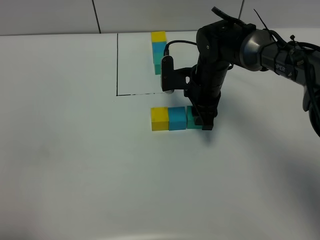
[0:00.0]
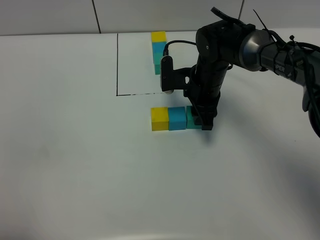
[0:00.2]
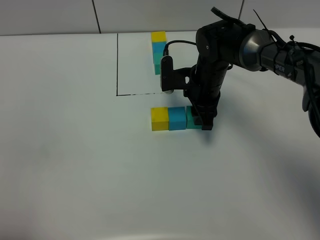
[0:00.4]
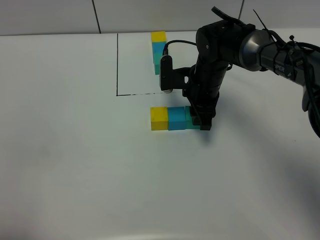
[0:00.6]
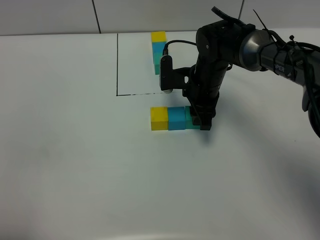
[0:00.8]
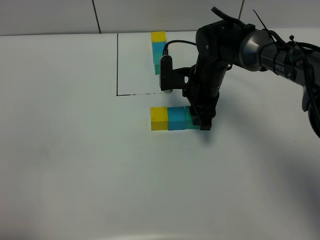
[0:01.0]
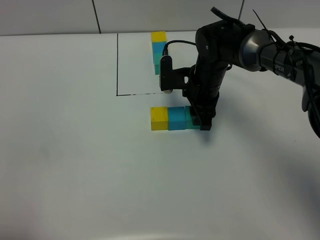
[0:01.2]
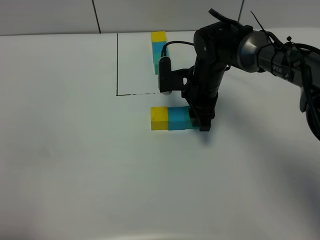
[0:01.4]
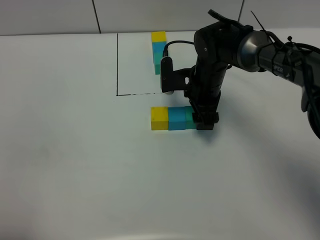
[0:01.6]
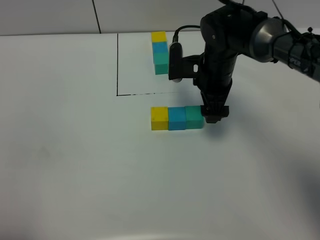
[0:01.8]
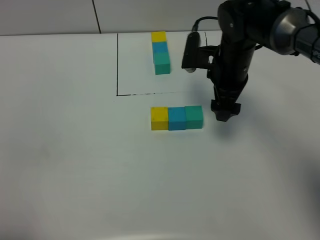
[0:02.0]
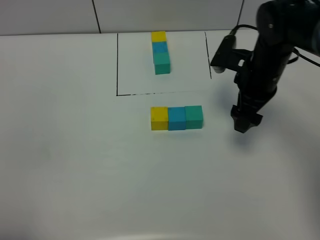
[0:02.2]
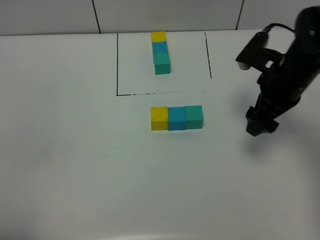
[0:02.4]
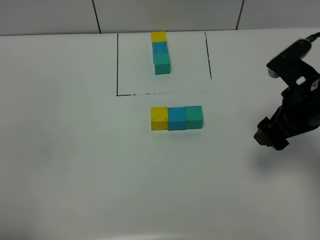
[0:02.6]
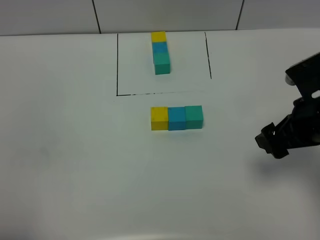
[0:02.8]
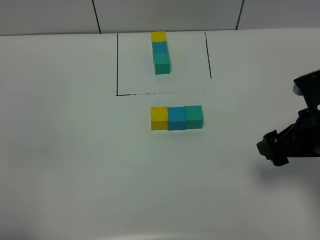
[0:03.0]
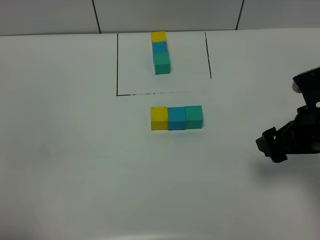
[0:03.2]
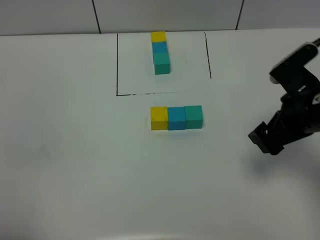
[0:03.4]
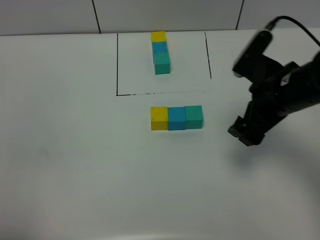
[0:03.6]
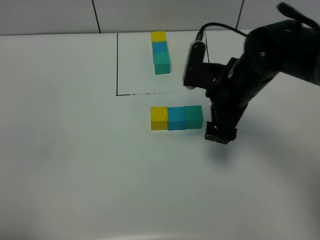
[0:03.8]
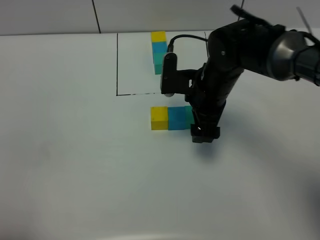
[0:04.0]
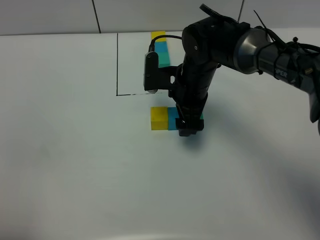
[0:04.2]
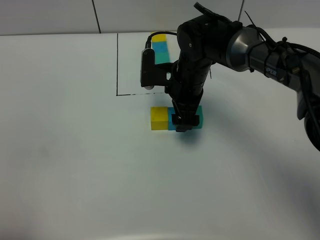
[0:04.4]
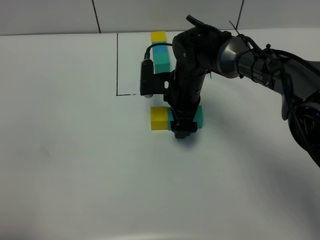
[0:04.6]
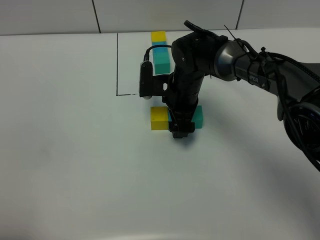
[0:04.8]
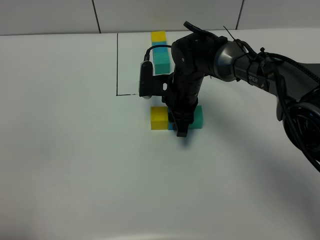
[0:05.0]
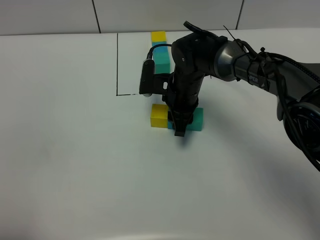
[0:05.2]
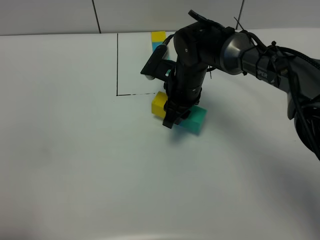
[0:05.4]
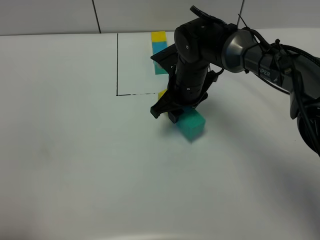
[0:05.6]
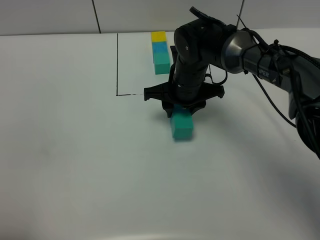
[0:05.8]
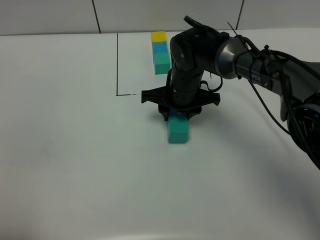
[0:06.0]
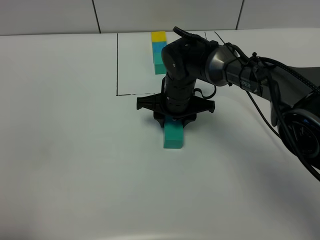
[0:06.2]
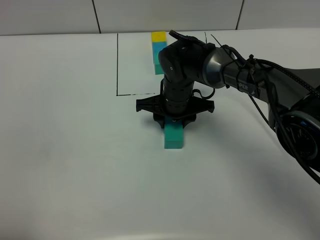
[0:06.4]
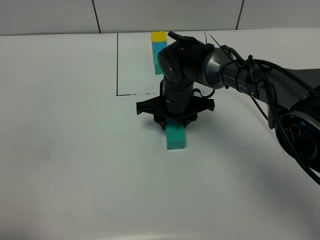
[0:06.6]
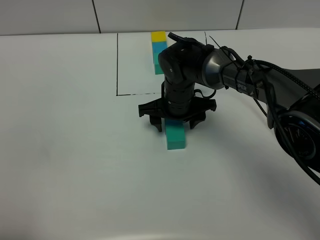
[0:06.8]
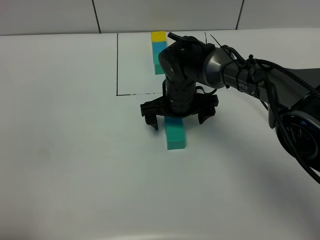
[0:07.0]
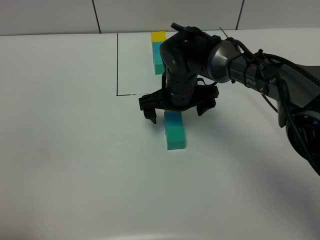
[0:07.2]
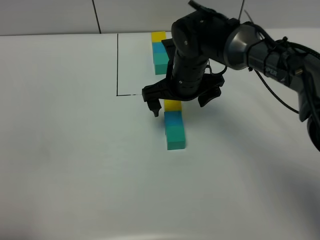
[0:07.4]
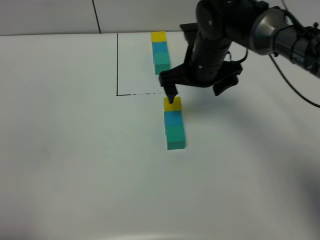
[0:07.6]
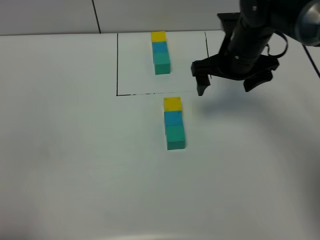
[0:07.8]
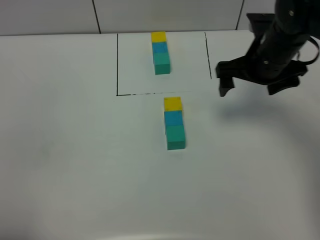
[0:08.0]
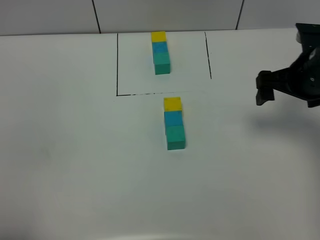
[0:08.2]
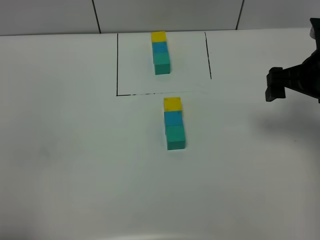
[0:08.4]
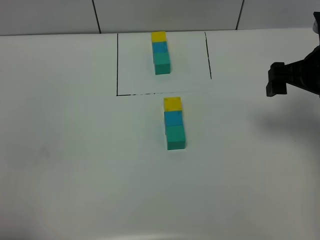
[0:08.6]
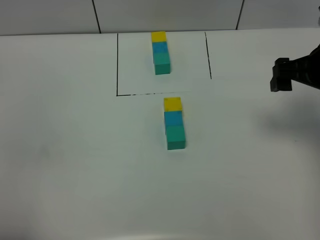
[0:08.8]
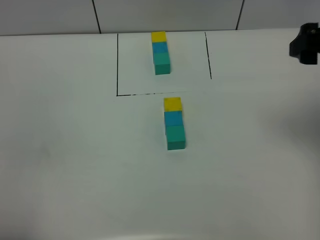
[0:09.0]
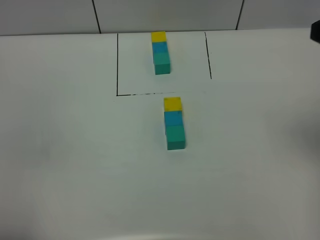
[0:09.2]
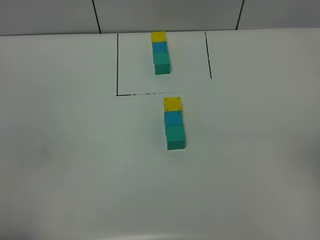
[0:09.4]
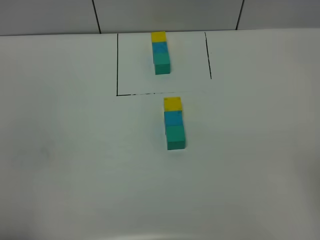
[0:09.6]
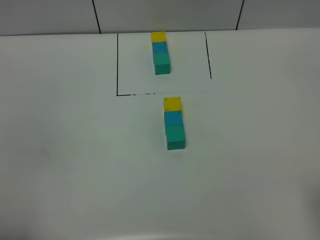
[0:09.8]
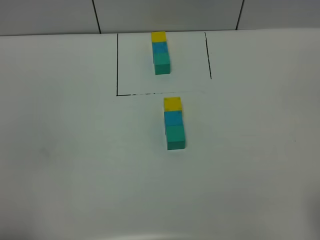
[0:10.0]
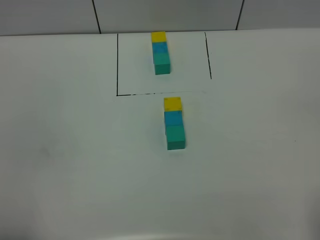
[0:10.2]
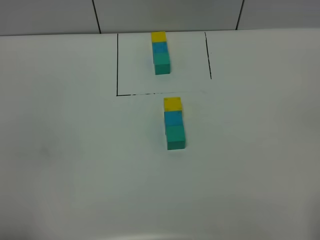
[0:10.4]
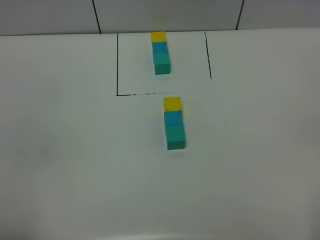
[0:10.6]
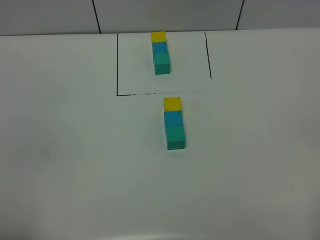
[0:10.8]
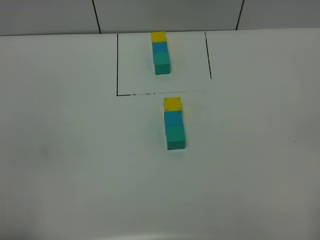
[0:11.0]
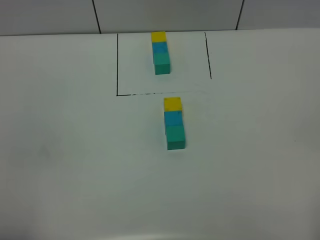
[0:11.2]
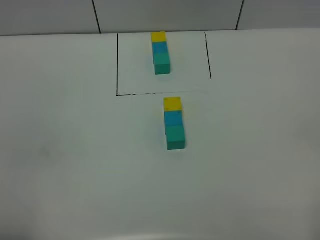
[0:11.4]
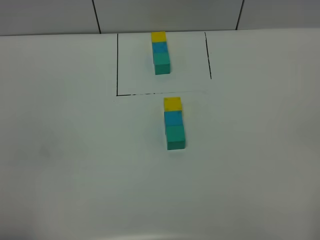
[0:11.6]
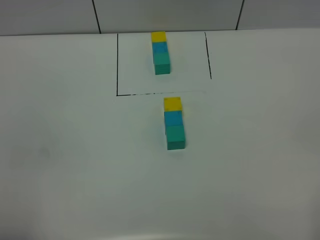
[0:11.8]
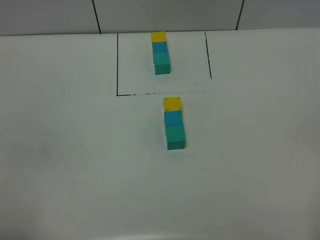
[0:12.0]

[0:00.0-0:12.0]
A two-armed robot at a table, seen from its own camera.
Task of the whole recording: According to the building block template in front, assemble the scattered blocks together.
Step, 0:01.8 to 0:07.4: move the build block to the center of the table.
0:00.0 to 0:01.6: The right gripper opens up.
0:01.6 to 0:03.0: The right gripper shifts roughly 25 cm backward, to the right and upward.
0:03.0 to 0:04.4: The right gripper goes some 25 cm to the left and forward.
0:04.4 to 0:06.0: The right gripper closes its fingers.
0:06.0 to 0:07.6: The right gripper travels upward and to the right by about 10 cm, and opens its fingers.
0:07.6 to 0:09.0: The right gripper shifts roughly 25 cm to the right, backward and upward.
0:09.0 to 0:10.4: The right gripper travels backward by approximately 25 cm.

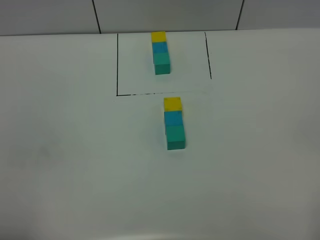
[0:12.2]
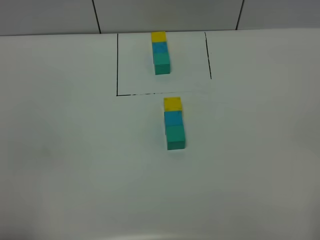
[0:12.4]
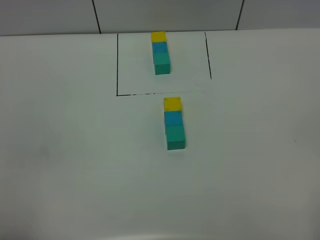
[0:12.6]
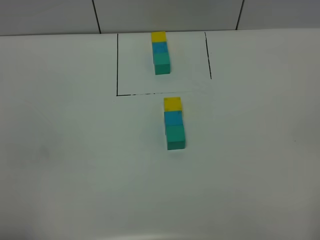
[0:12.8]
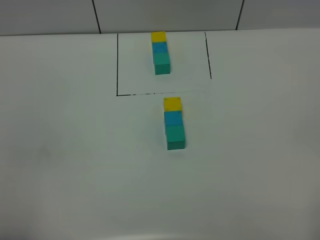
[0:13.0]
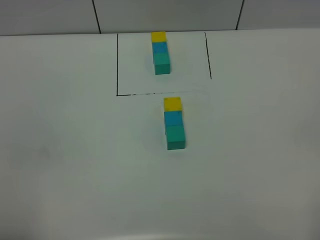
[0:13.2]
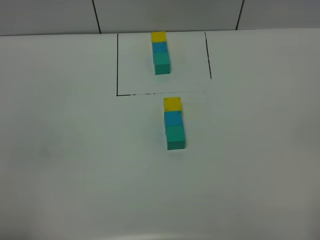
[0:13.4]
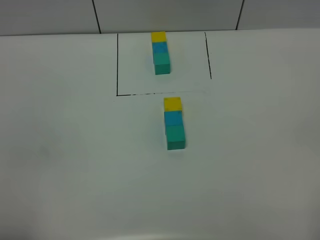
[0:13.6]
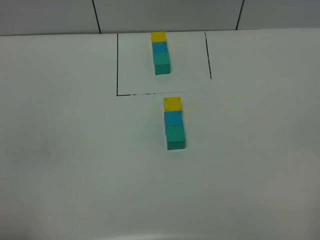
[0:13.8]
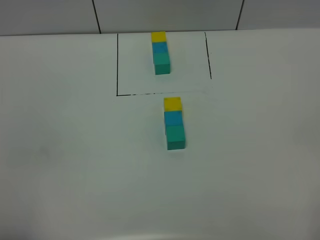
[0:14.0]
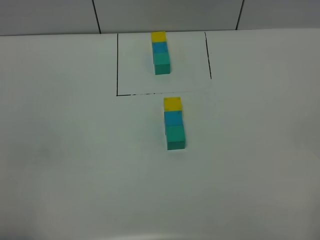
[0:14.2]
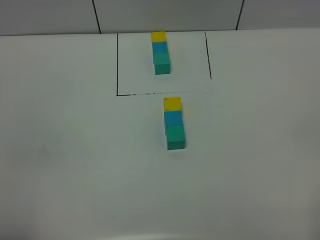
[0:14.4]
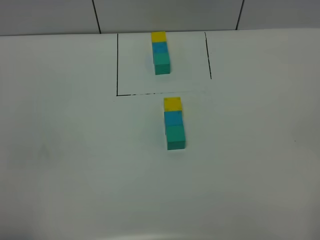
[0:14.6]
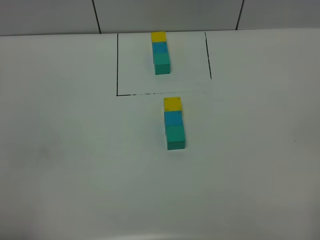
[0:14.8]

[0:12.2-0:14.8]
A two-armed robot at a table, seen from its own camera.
Task of the whole recording: According to the building block template in front, assemble the scattered blocks together.
0:12.2 to 0:14.8: Both grippers stay about where they are.
